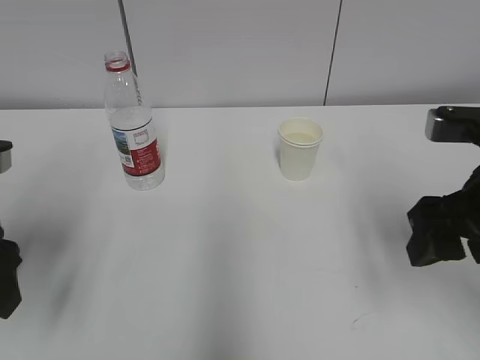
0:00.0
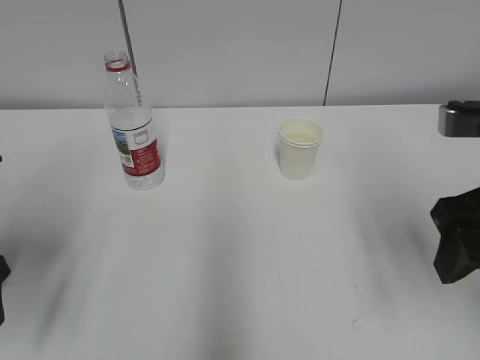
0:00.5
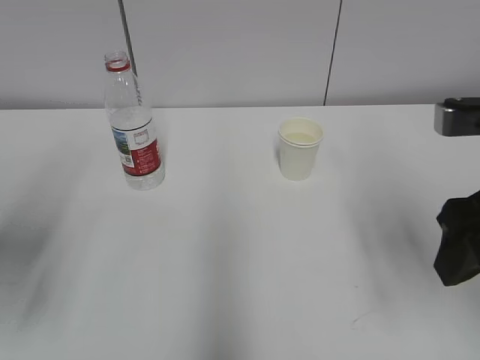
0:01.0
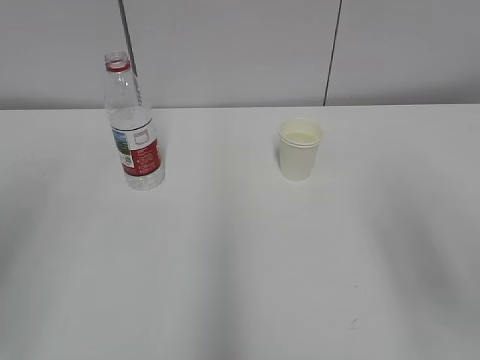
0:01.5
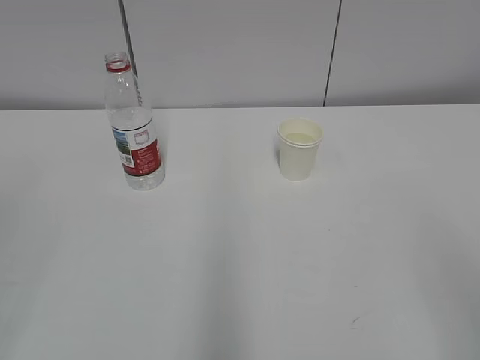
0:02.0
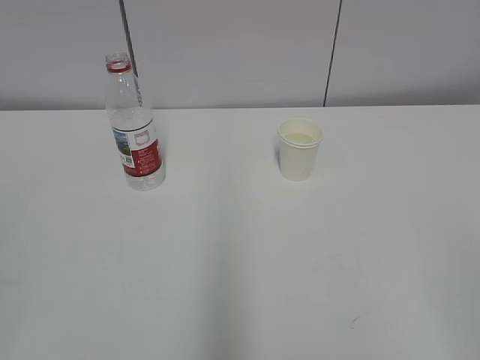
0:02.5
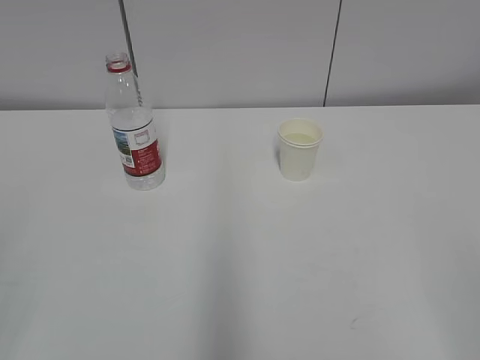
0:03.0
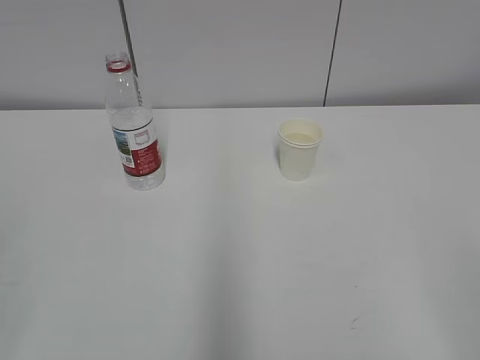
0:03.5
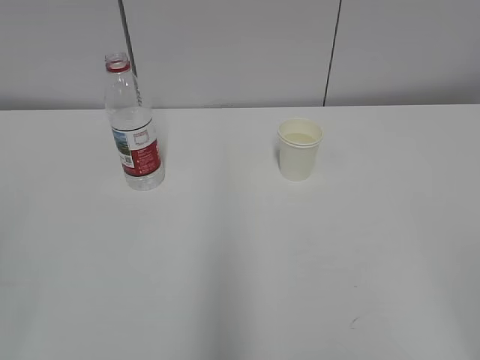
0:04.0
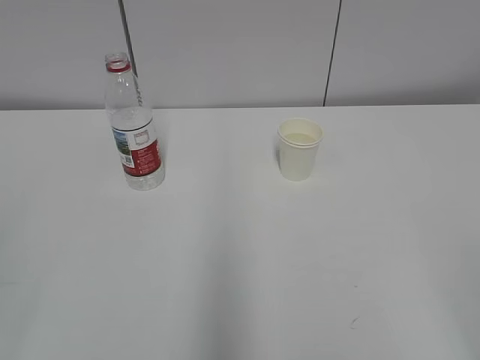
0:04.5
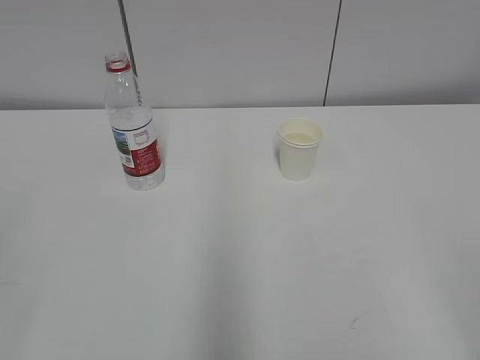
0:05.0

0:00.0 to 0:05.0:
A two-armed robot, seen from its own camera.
0:00.0 to 0:02.5: Both grippers move backward, approximately 25 cm. The right gripper closes up, while the left gripper closes its fingers.

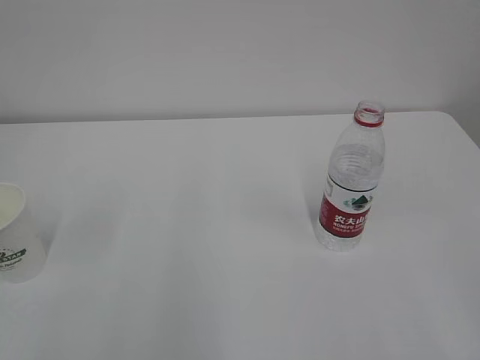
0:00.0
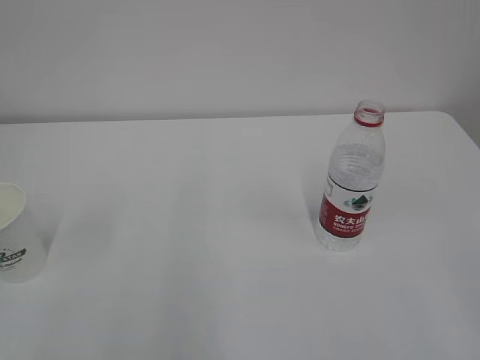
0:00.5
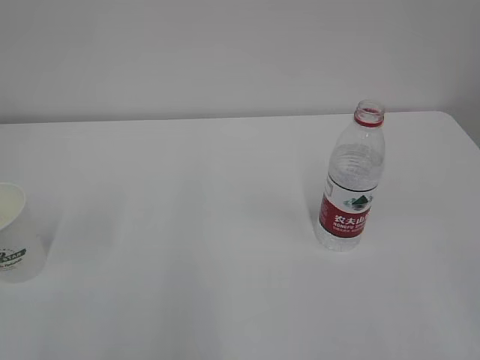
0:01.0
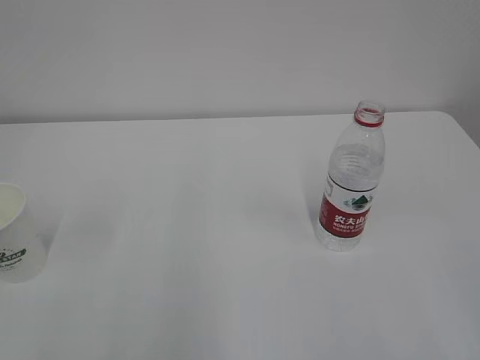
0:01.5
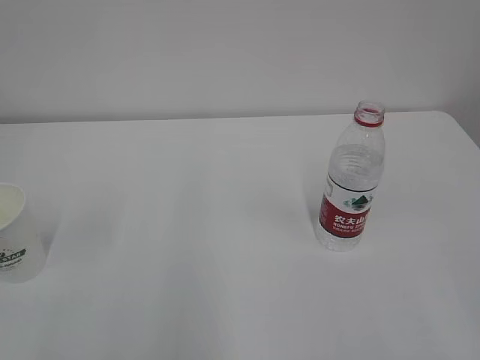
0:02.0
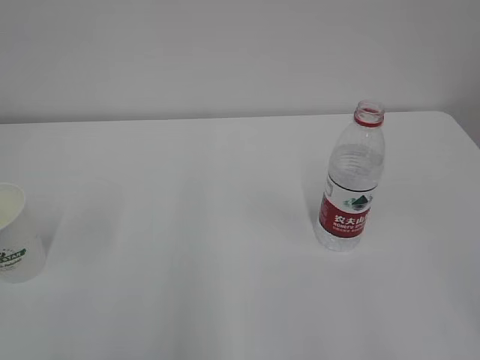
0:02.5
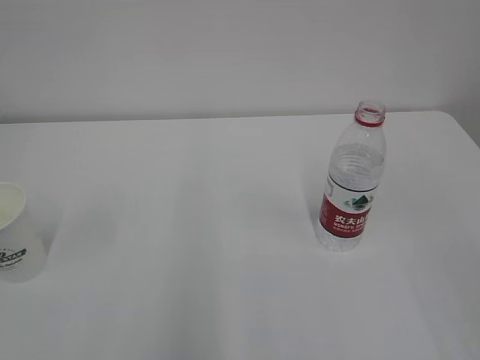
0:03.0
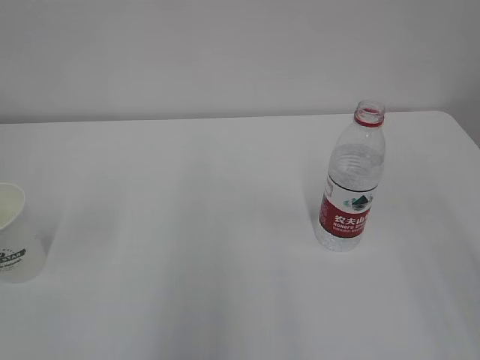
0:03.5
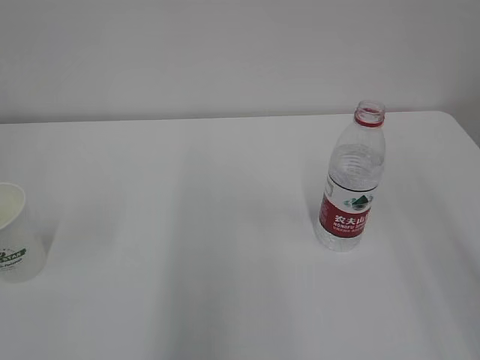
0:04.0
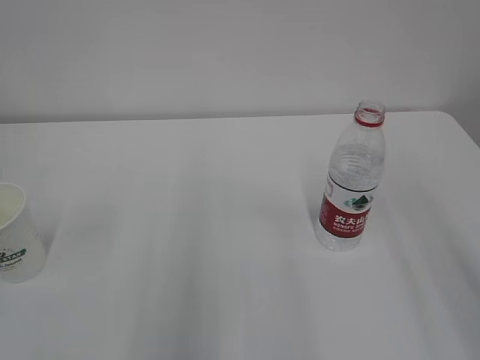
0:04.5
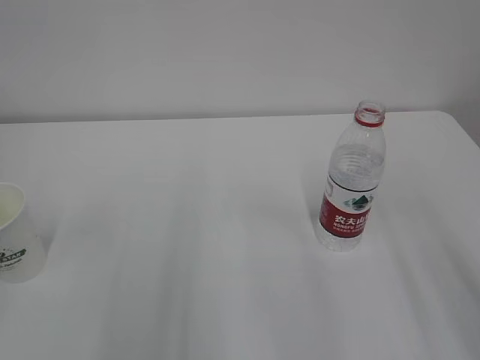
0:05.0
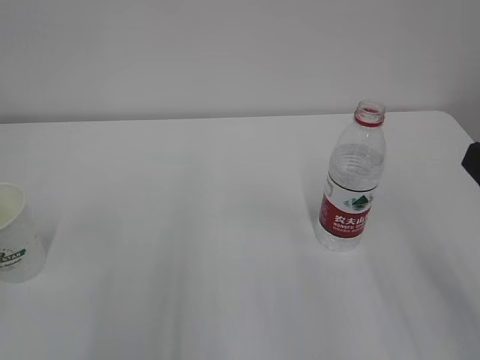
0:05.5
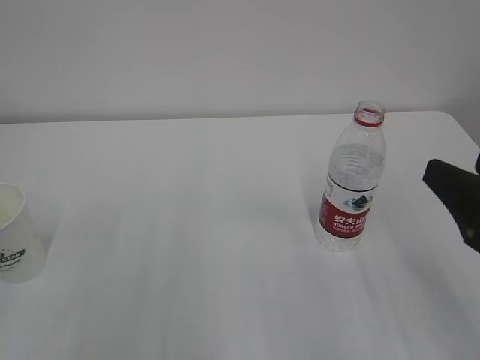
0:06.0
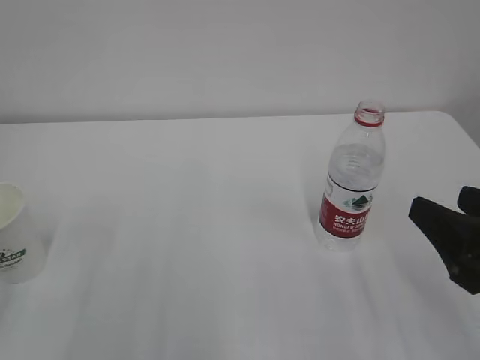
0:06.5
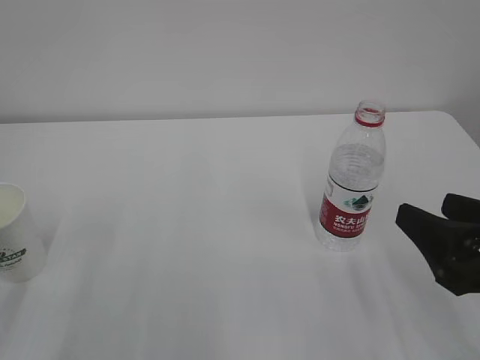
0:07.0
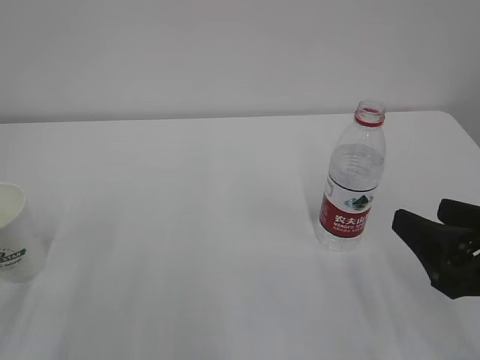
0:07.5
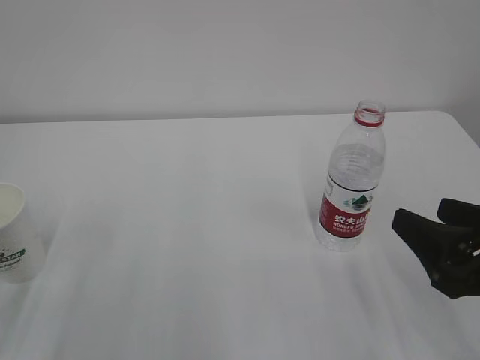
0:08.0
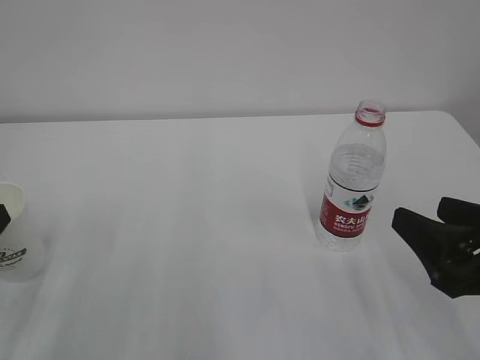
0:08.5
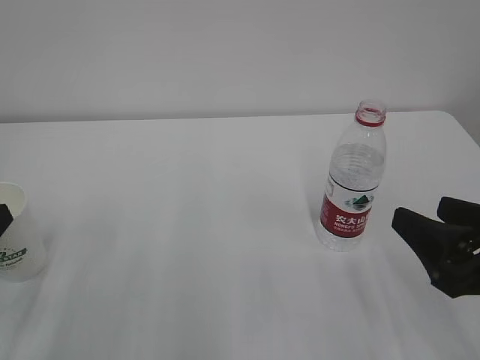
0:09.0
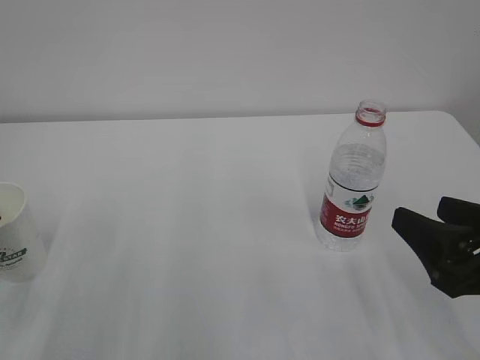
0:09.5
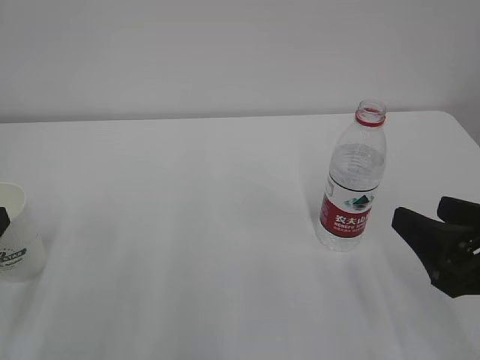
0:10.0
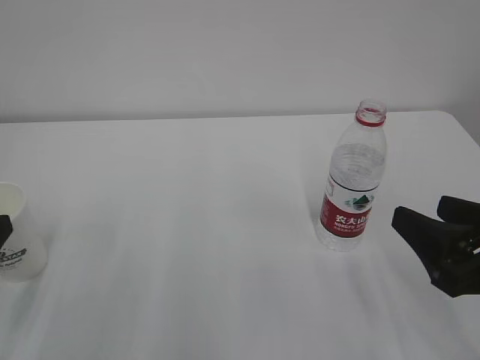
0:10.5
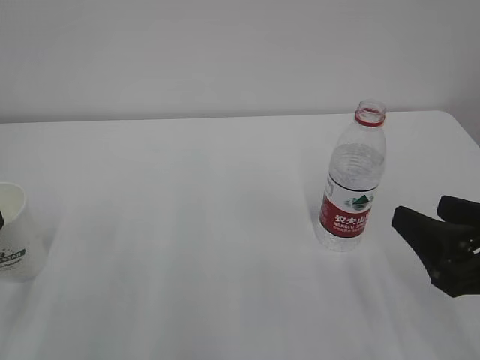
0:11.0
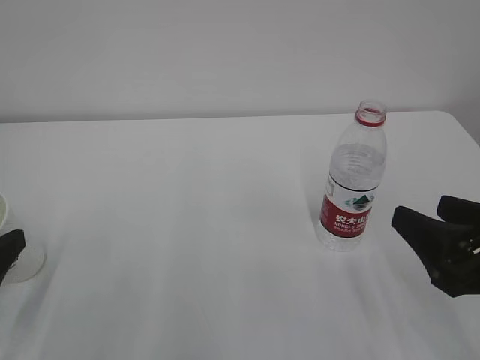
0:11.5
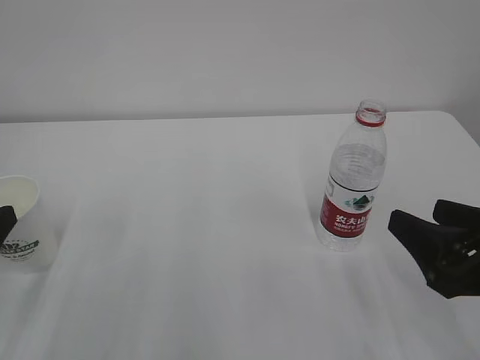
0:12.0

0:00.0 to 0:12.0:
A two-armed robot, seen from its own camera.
0:04.0 to 0:06.0: The right gripper goes about 15 cm downward and forward.
0:10.0 to 0:12.0: The grippers make only small movements.

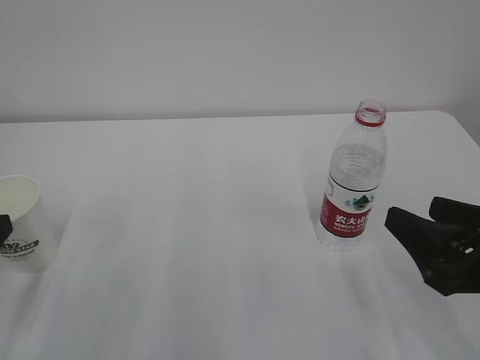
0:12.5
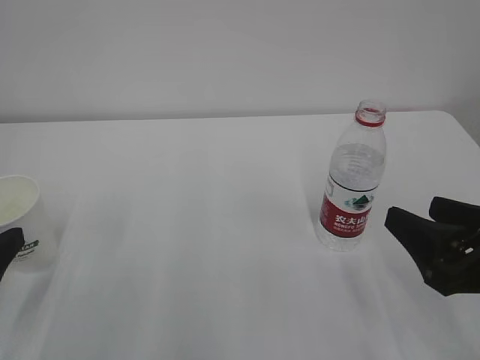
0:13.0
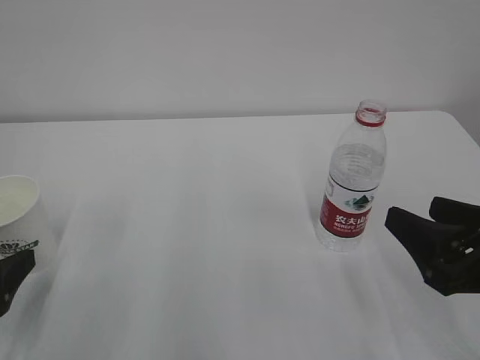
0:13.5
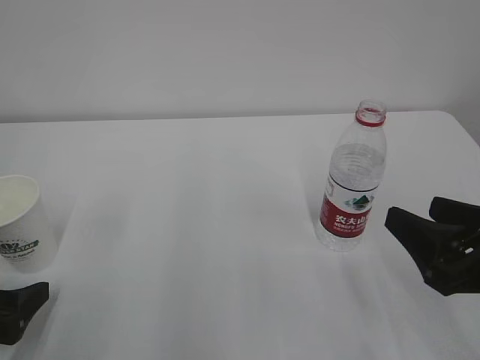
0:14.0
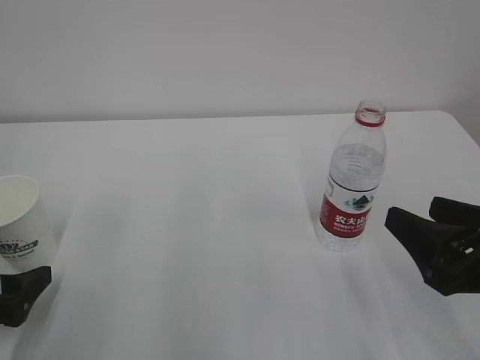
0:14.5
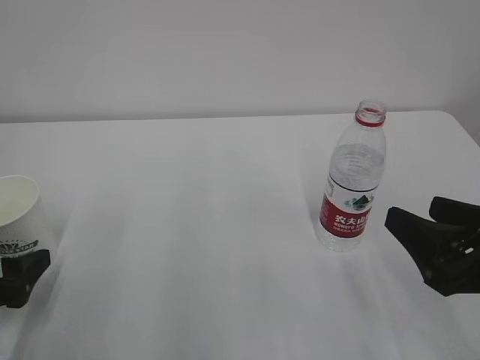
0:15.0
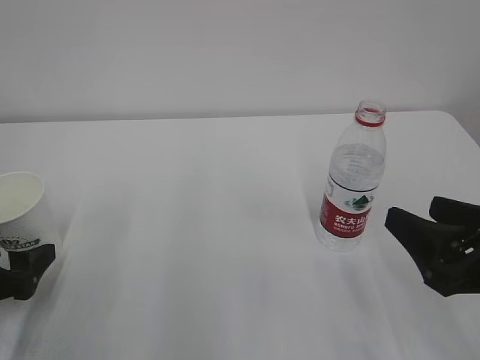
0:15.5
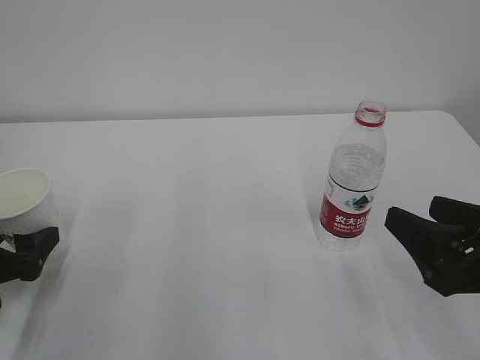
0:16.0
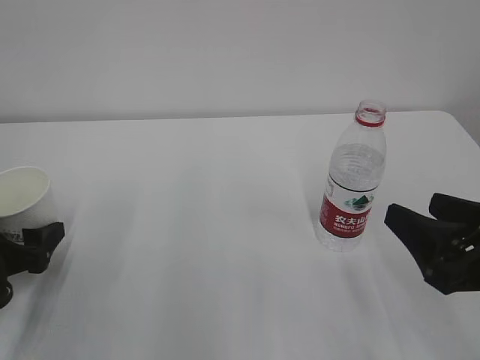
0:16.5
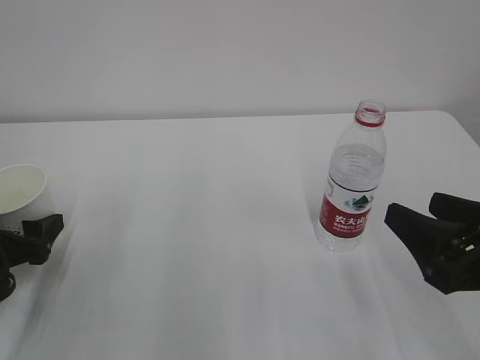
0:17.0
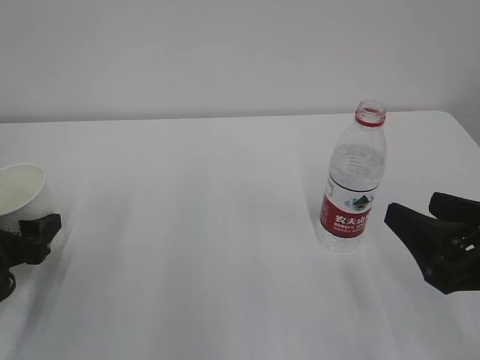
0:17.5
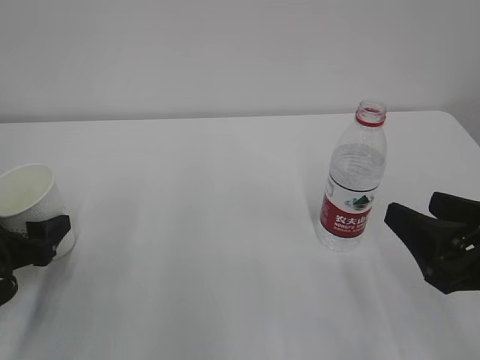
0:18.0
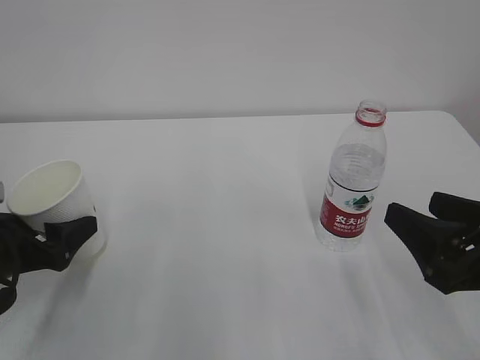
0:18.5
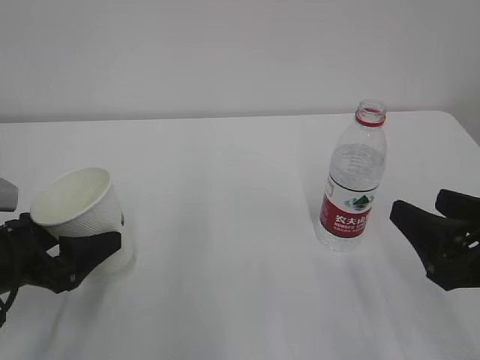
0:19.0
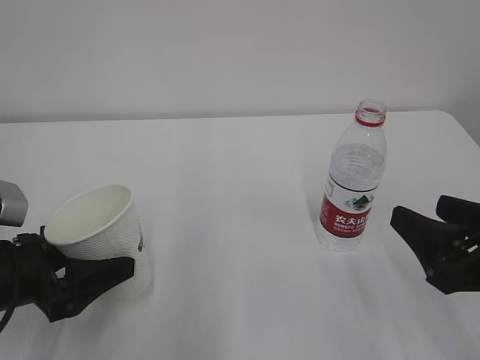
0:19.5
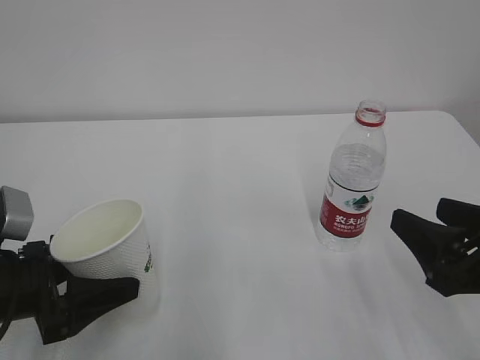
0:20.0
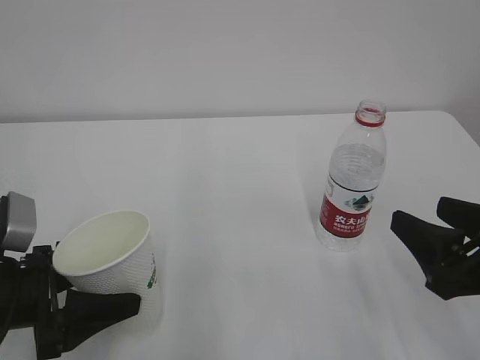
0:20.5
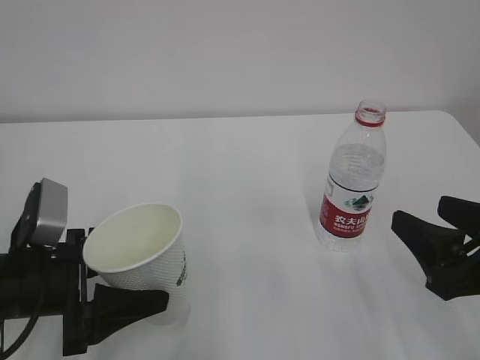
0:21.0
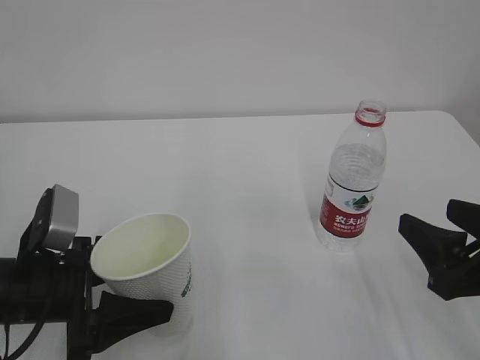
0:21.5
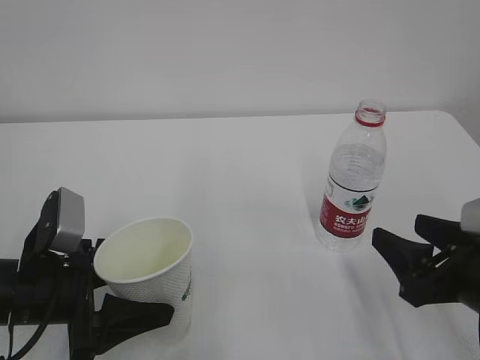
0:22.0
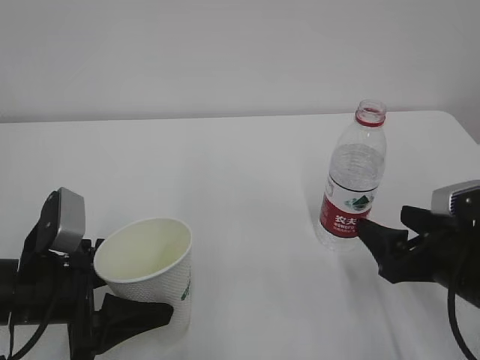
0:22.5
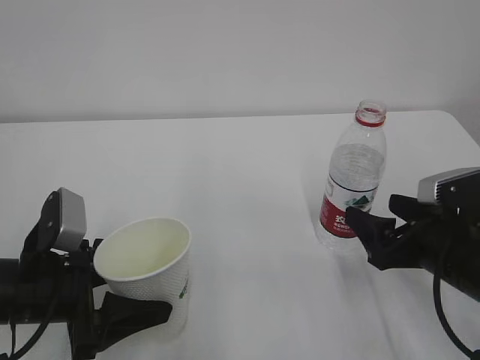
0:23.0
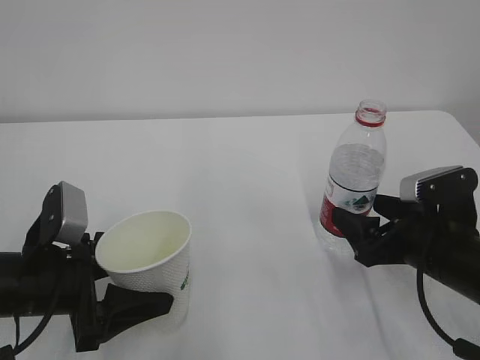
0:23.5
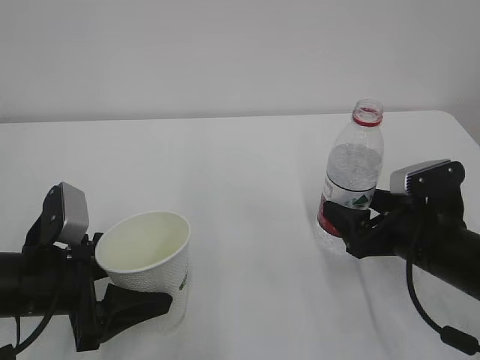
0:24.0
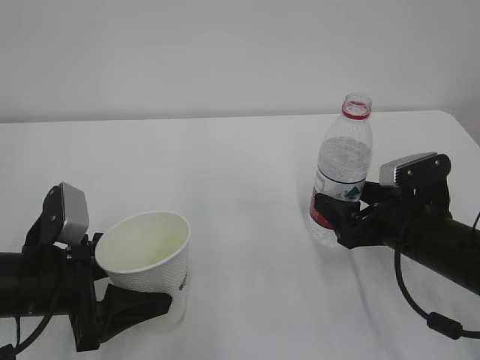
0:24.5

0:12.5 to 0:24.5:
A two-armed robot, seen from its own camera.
0:12.5 to 0:14.5: The left gripper shifts approximately 5 cm downward.
0:14.5 to 0:16.5: The left gripper heads forward, covering approximately 5 cm.
0:16.5 to 0:18.5: The grippers move only a little.
0:18.5 to 0:20.5: The left gripper shifts by about 5 cm.
0:20.5 to 0:22.5: The right gripper heads downward and forward, covering about 10 cm, and opens.
0:22.5 to 0:24.5: The right gripper goes some 5 cm forward.
